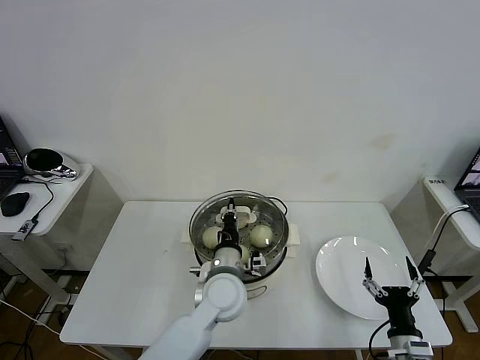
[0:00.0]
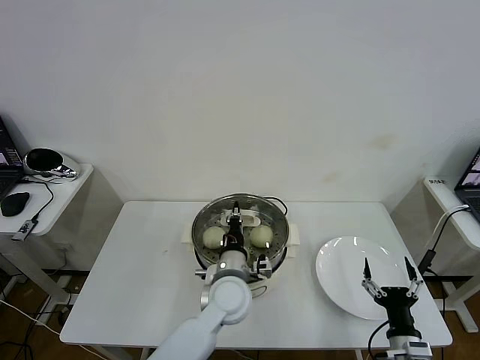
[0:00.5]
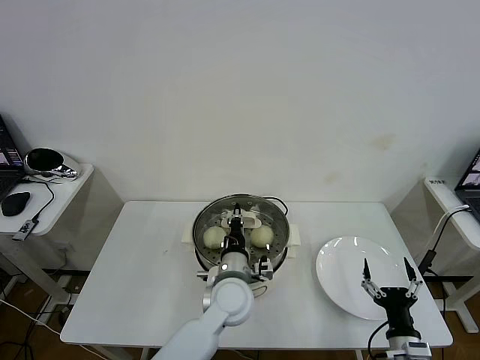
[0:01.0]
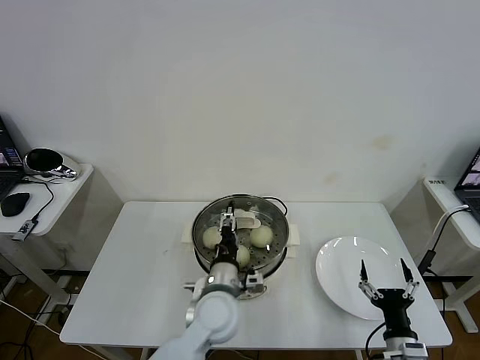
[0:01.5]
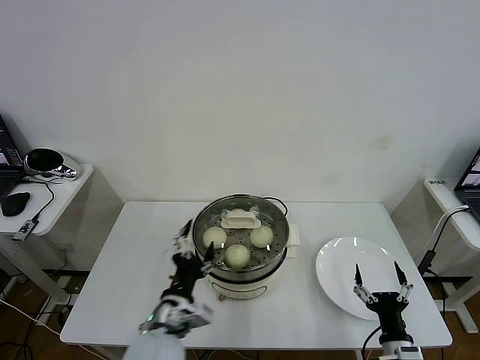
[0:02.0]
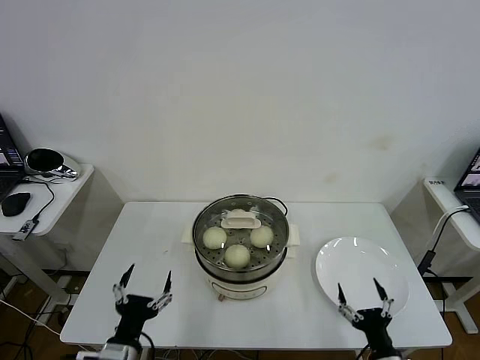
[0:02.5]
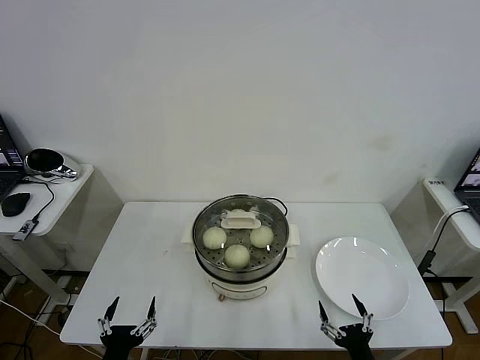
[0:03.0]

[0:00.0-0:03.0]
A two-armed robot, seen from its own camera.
Task of the whole recording: take steamed baozi put them in steamer then cover it.
0:00.0 to 0:01.5: The left gripper opens.
0:01.5 to 0:03.0: The right gripper heads backward, covering about 5 cm; the left gripper shifts approximately 30 cm to the left and backward, and opens.

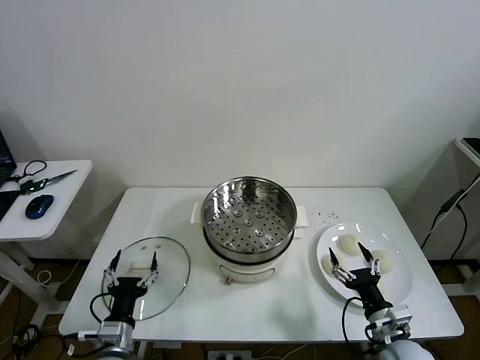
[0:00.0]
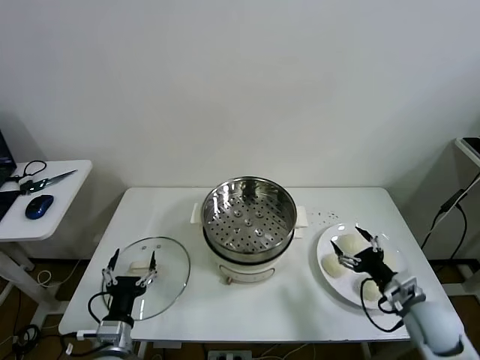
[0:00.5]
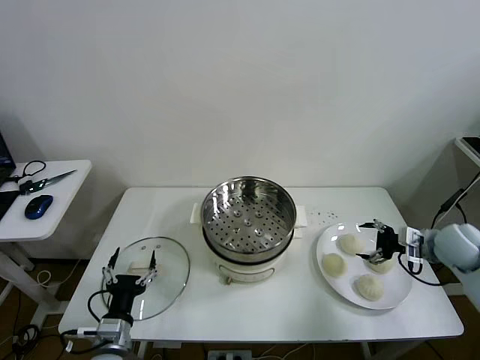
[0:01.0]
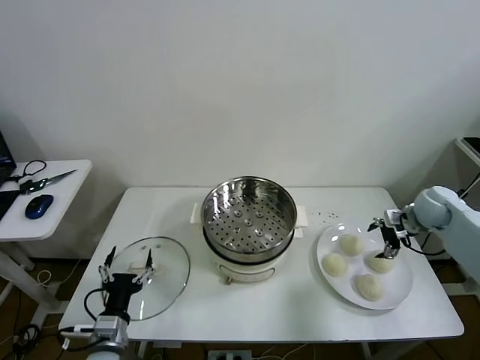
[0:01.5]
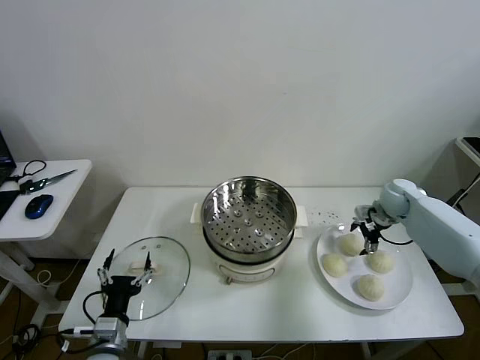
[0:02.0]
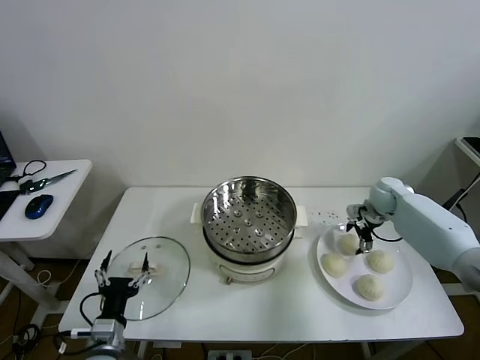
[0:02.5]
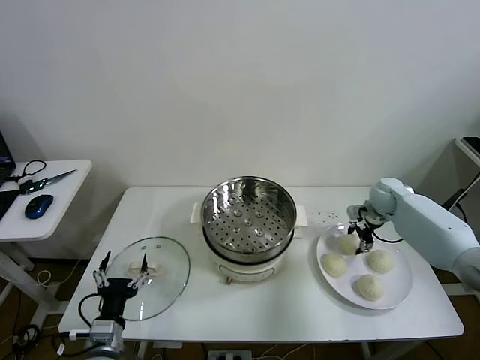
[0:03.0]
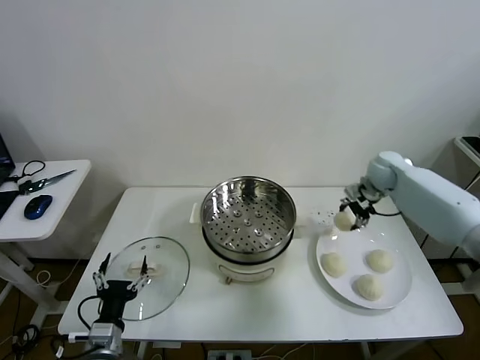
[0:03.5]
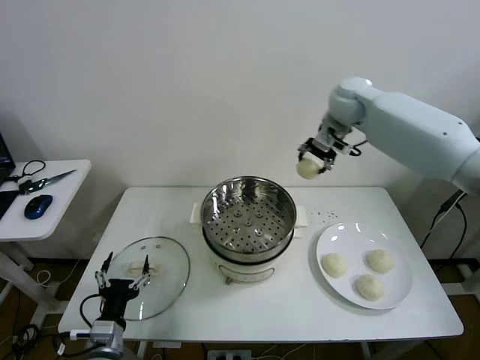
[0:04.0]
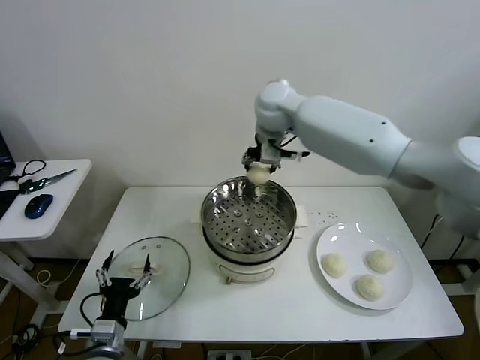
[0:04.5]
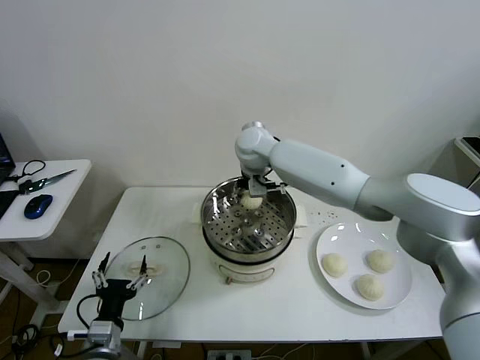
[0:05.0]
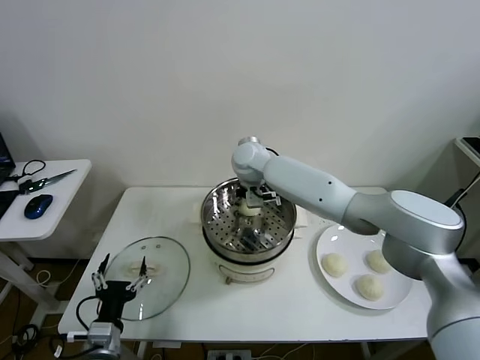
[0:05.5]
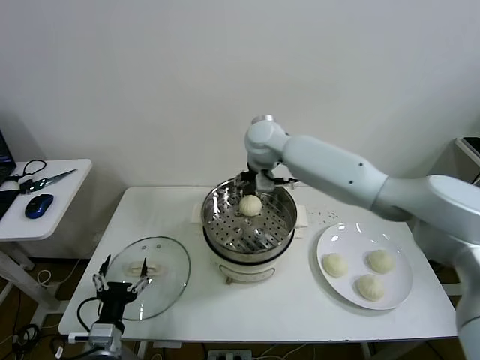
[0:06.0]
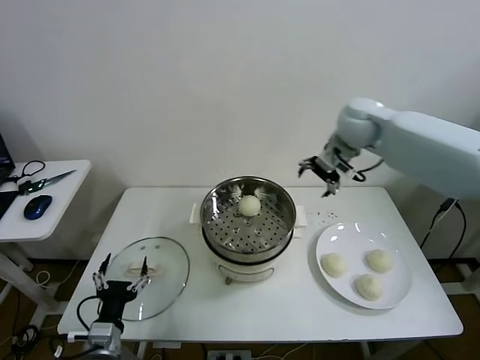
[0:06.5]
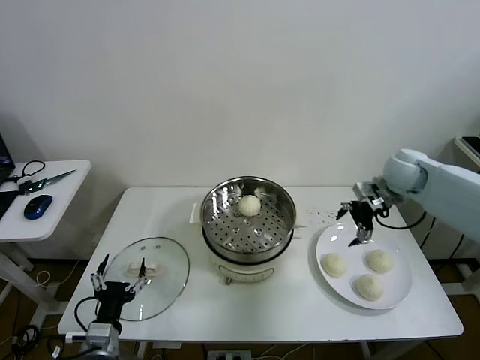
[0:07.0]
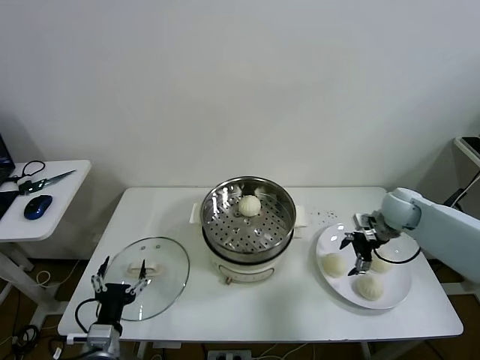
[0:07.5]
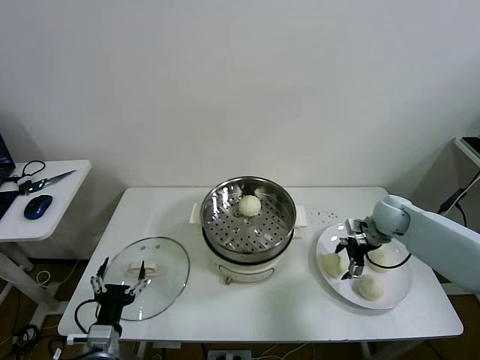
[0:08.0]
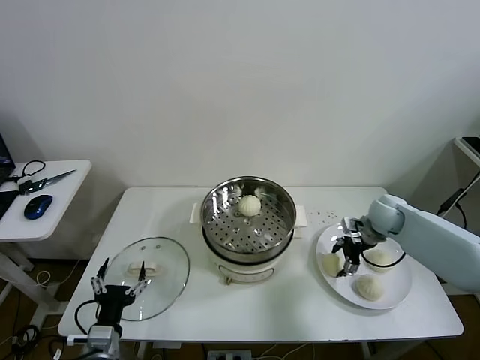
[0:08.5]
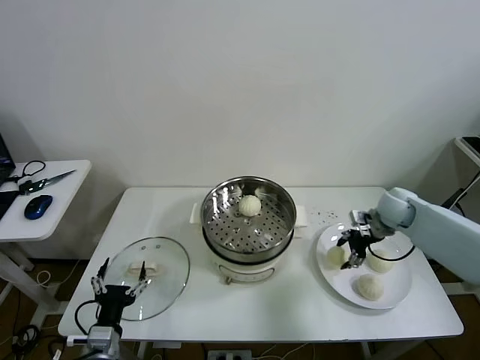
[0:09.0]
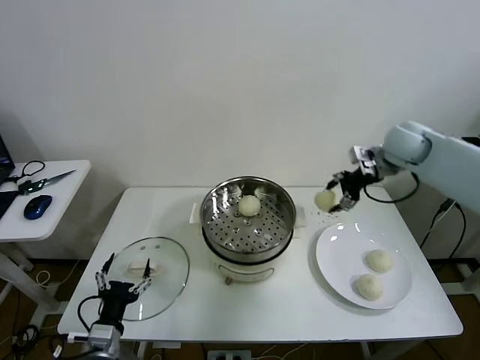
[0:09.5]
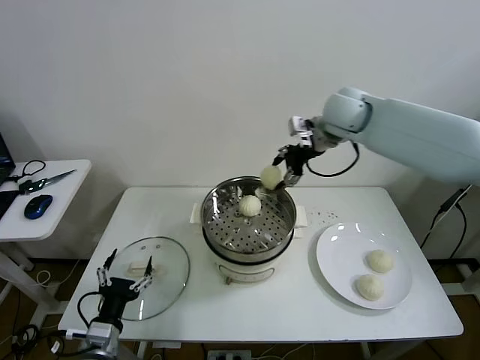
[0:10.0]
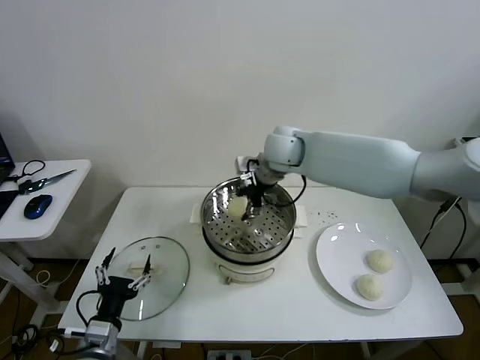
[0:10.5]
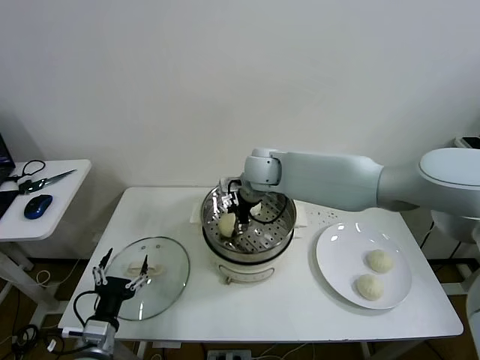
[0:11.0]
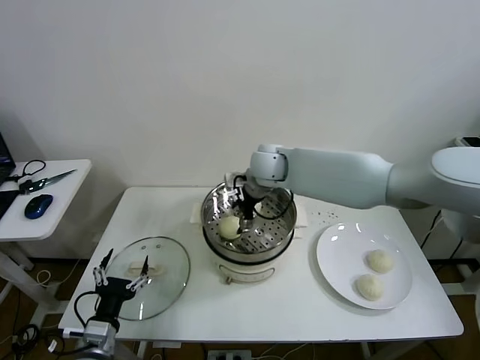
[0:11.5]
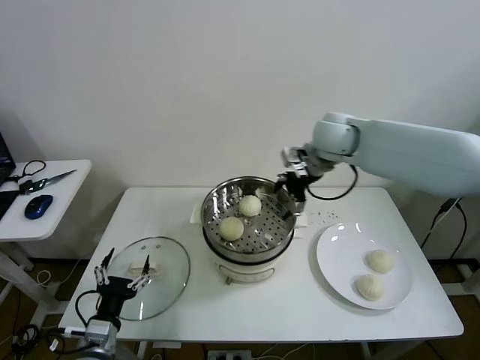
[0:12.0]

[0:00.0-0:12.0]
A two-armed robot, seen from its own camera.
Task of the whole recording: take steamed baozi put them in steamer then cover it.
Step, 0:00.0 to 0:02.5: Grasp the baozi in the plate with right gripper.
Step, 0:03.0 to 0:05.5: Place the baozi on the steamer with right gripper.
Step, 0:06.0 to 0:08.5: Grasp the baozi in the plate with right gripper.
Step, 0:09.0 to 0:11.0: Place the baozi on the steamer with right gripper.
0:02.0 to 0:04.0: The right gripper travels upward and to the left by about 35 cm, and closes its fingers.
0:04.0 to 0:06.0: The right gripper heads to the left and downward, covering about 15 cm, and opens up.
0:06.0 to 0:08.0: The right gripper goes about 35 cm to the right and downward.
0:08.0 to 0:10.0: The right gripper goes roughly 30 cm upward and to the left, and closes its fingers.
0:10.0 to 0:12.0: The right gripper reaches about 15 cm to the left, then returns, and opens up.

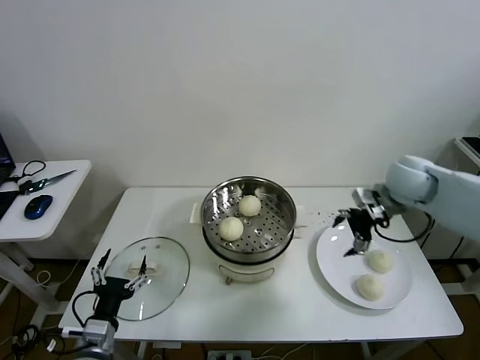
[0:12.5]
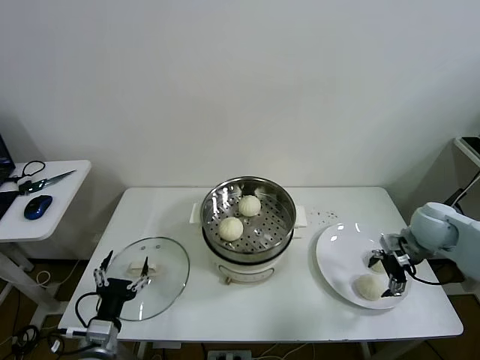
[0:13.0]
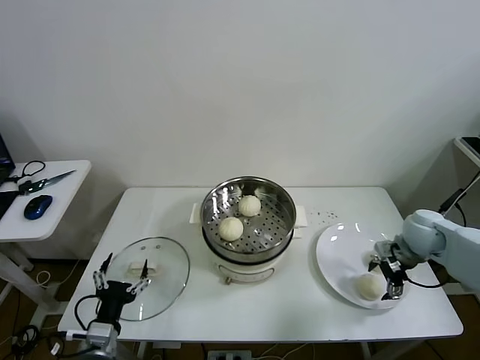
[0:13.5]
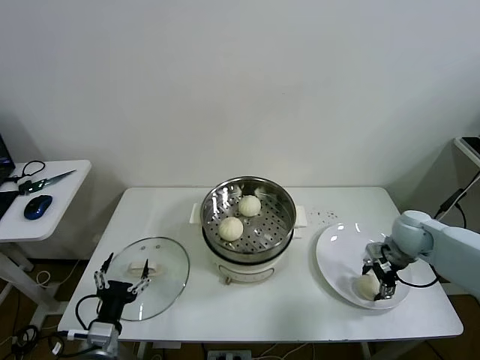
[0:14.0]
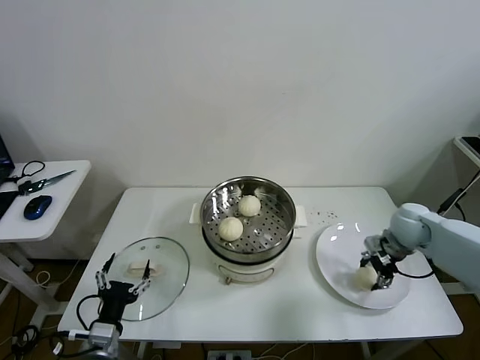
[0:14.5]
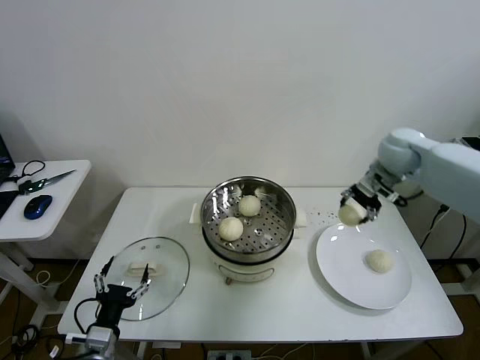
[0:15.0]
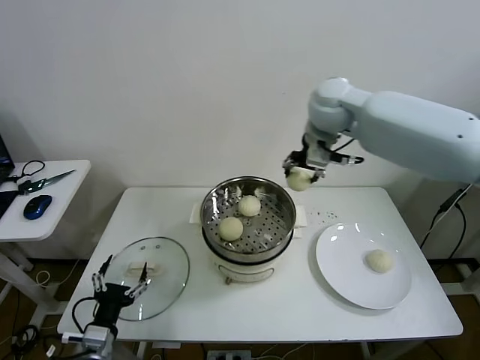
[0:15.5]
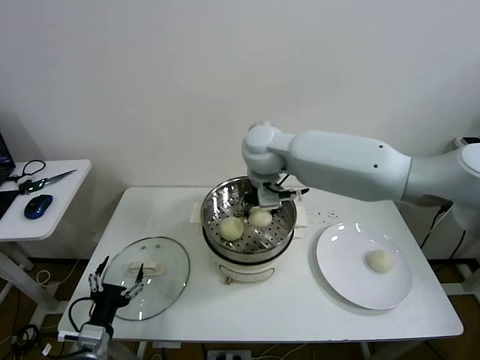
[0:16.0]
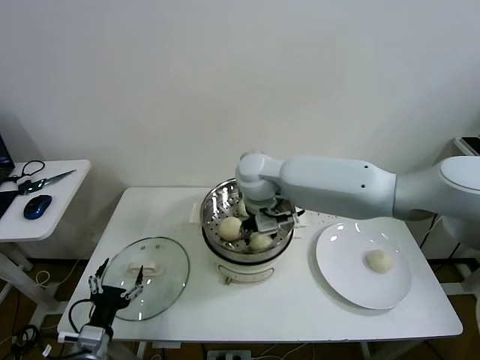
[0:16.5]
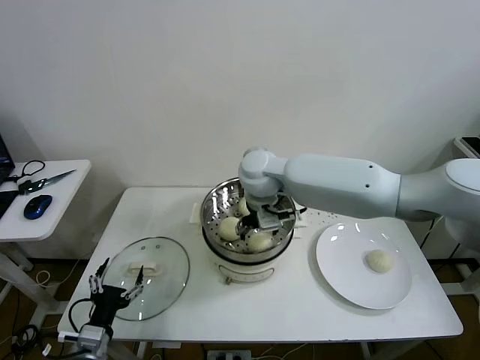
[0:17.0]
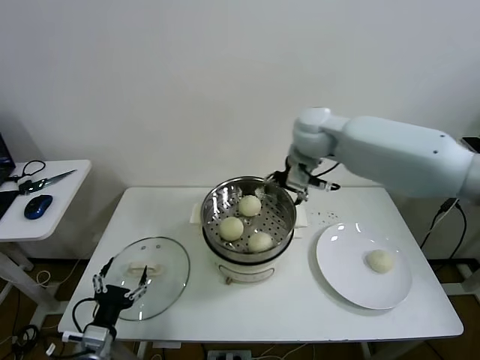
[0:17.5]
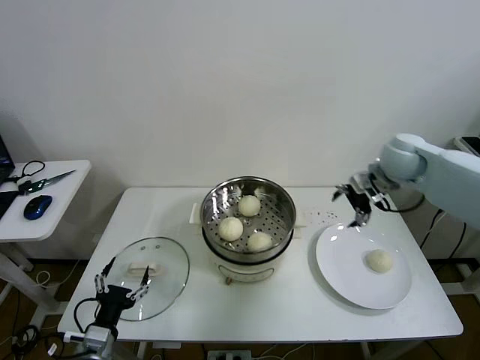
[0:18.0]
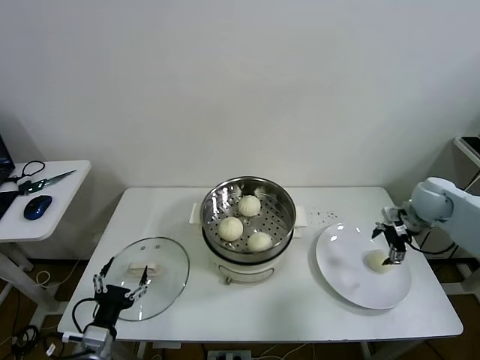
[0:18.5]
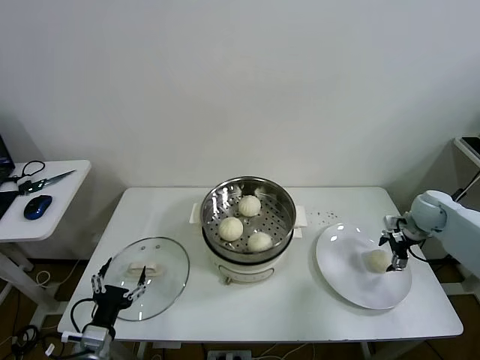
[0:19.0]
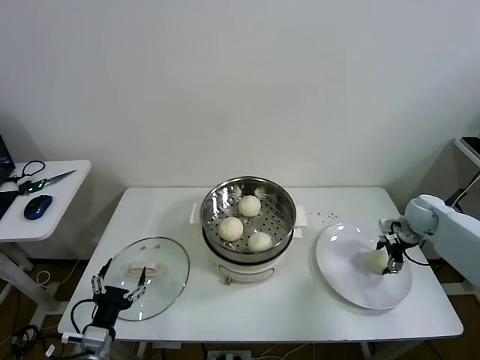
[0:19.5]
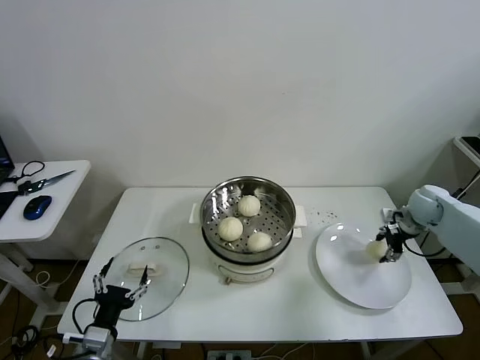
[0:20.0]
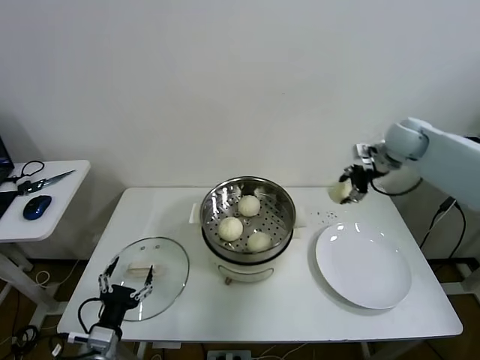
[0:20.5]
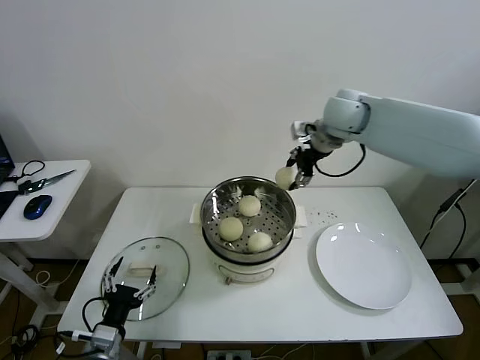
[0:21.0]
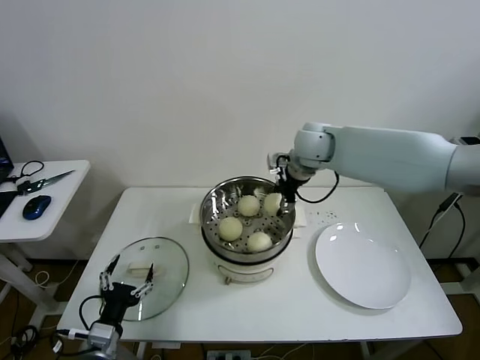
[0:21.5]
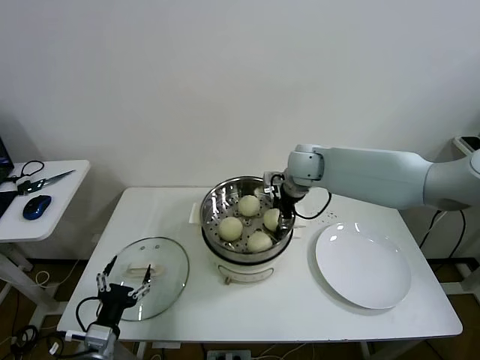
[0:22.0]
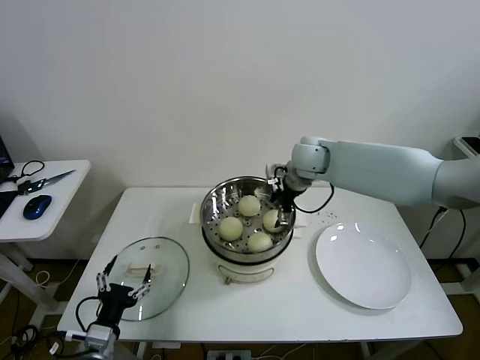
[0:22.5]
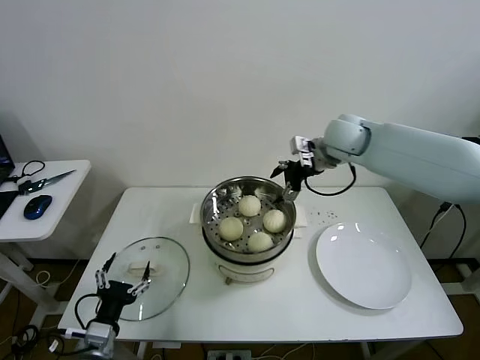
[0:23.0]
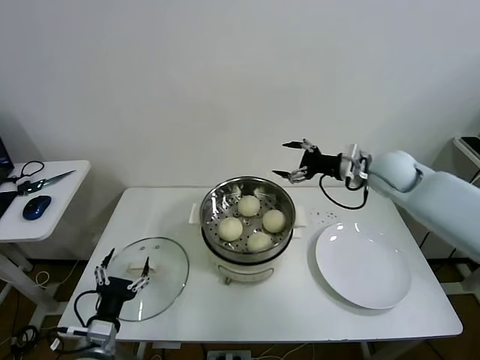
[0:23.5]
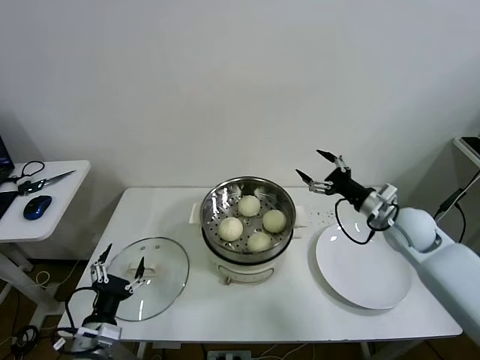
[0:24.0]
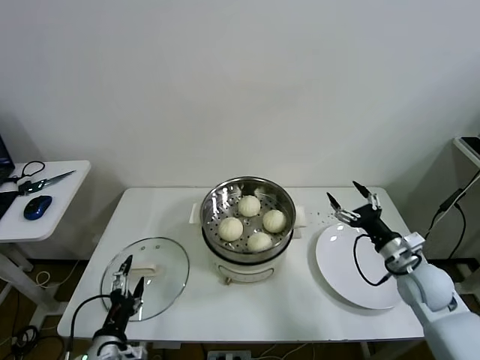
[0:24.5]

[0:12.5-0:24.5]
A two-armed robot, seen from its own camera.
Task of the whole recording: take steamed baozi put them in steamer then cover it.
Step, 0:12.5 to 0:14.0: Grasp the baozi in the plate with right gripper.
Step, 0:14.5 to 0:17.0: Place the baozi on the steamer with right gripper.
Step, 0:17.5 to 0:19.5: Grasp the baozi in the plate with right gripper.
Step, 0:20.0 to 0:22.0: Place the baozi on the steamer with right gripper.
0:12.5 to 0:14.5: The right gripper is displaced downward by roughly 10 cm, and closes its fingers.
0:14.5 to 0:16.5: The right gripper is displaced to the left by roughly 35 cm.
0:16.5 to 0:18.5: The right gripper is displaced to the right by approximately 40 cm, and opens.
0:18.5 to 0:20.5: The right gripper shifts about 15 cm upward, to the left and forward, and closes up.
0:20.5 to 0:22.5: The right gripper travels to the left by roughly 20 cm, and opens its fingers.
0:22.5 to 0:24.5: The right gripper is displaced backward, to the right and downward by some 35 cm.
